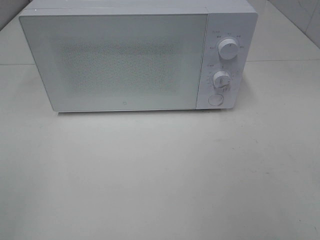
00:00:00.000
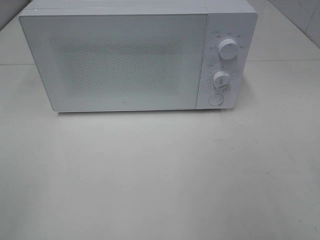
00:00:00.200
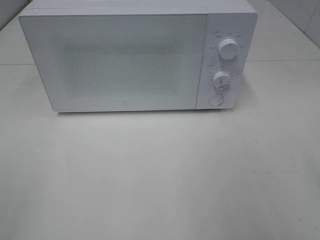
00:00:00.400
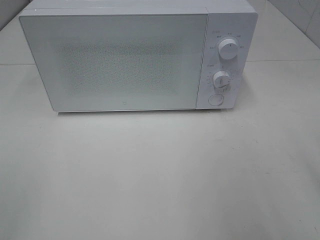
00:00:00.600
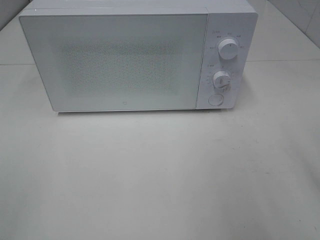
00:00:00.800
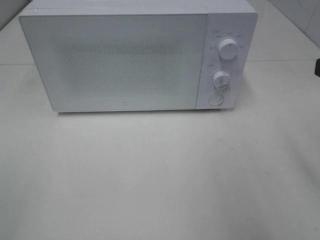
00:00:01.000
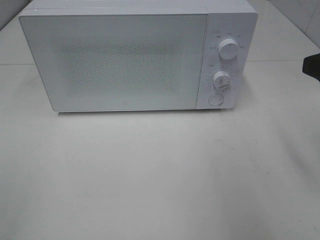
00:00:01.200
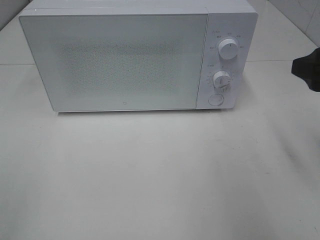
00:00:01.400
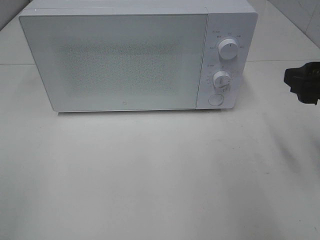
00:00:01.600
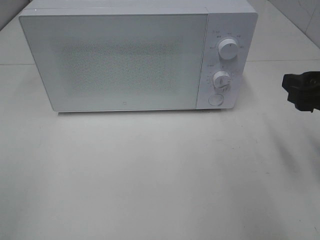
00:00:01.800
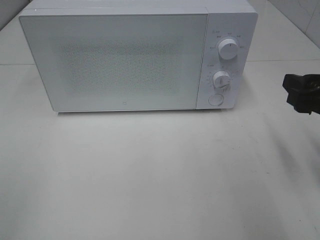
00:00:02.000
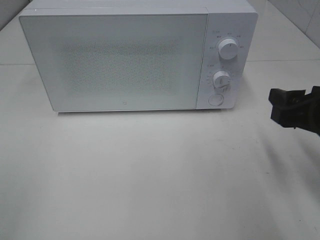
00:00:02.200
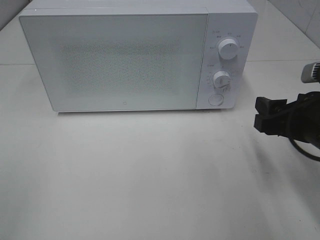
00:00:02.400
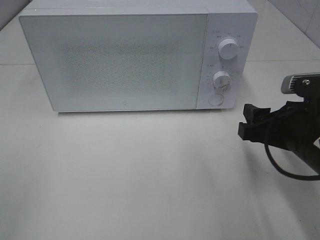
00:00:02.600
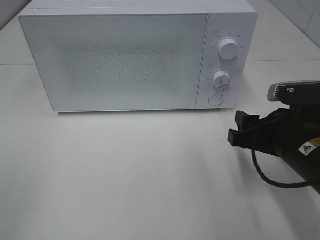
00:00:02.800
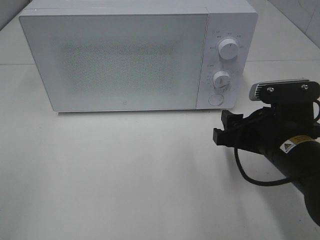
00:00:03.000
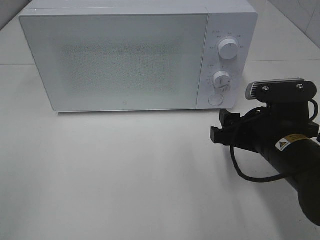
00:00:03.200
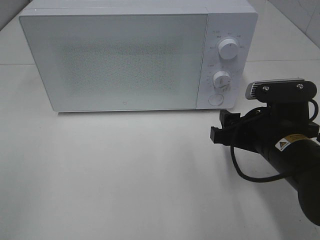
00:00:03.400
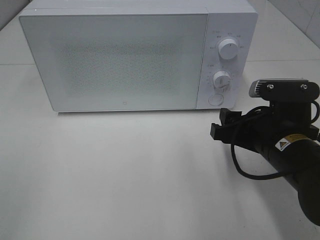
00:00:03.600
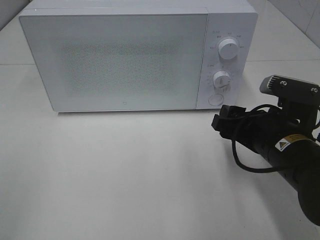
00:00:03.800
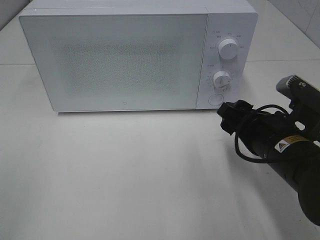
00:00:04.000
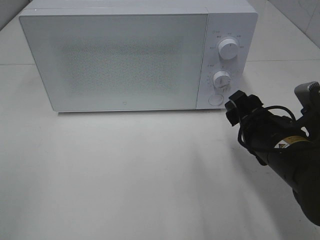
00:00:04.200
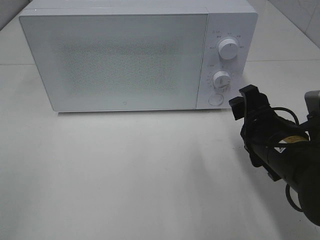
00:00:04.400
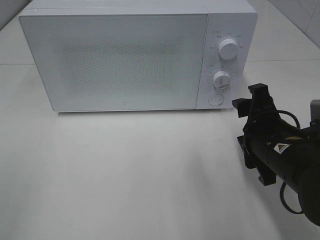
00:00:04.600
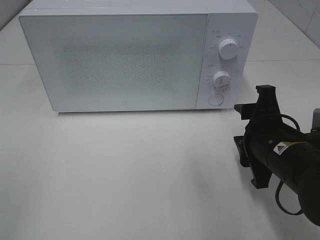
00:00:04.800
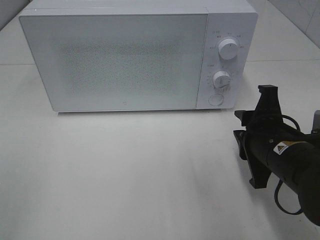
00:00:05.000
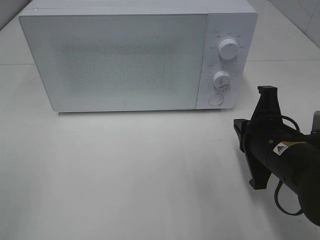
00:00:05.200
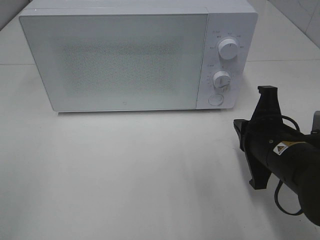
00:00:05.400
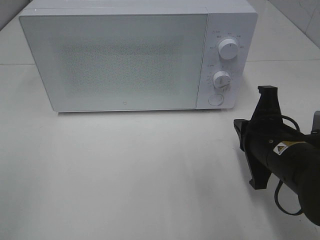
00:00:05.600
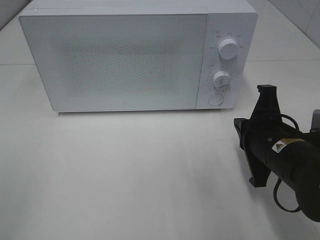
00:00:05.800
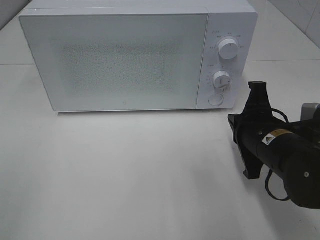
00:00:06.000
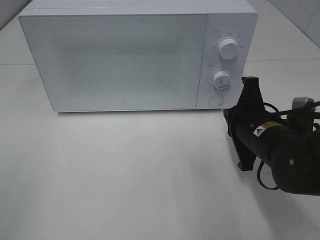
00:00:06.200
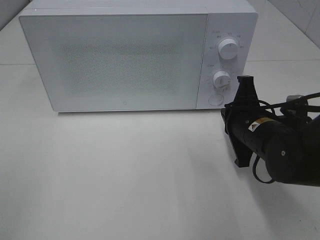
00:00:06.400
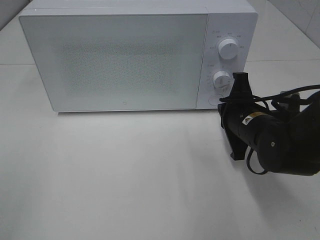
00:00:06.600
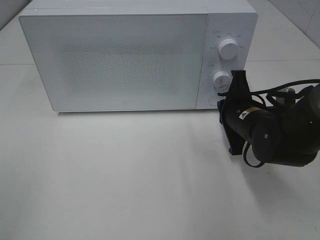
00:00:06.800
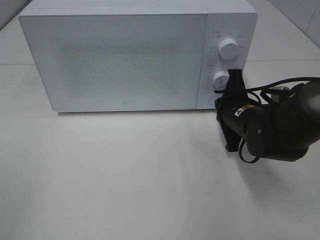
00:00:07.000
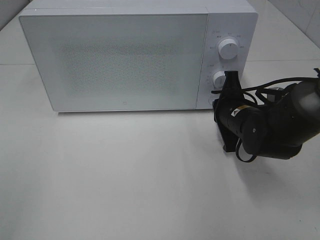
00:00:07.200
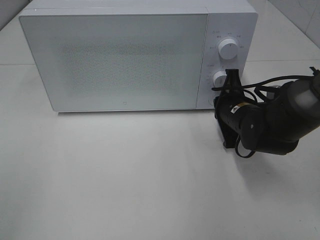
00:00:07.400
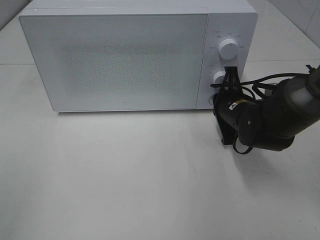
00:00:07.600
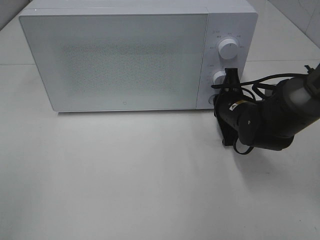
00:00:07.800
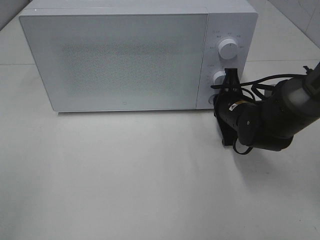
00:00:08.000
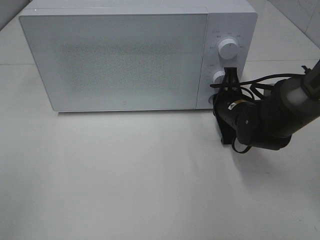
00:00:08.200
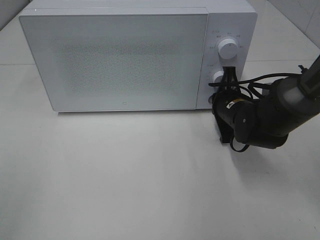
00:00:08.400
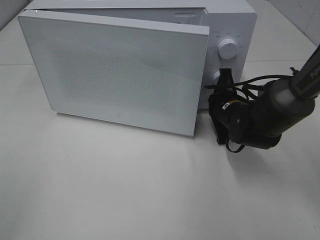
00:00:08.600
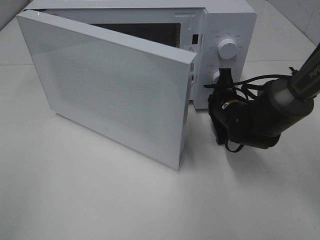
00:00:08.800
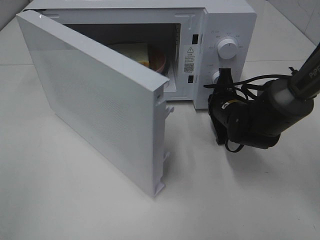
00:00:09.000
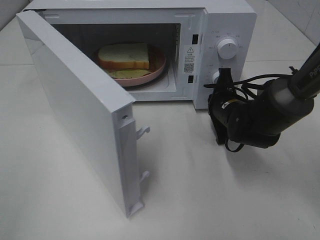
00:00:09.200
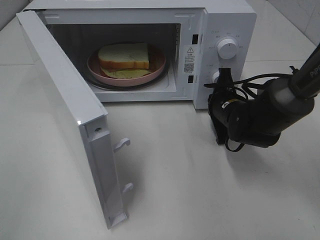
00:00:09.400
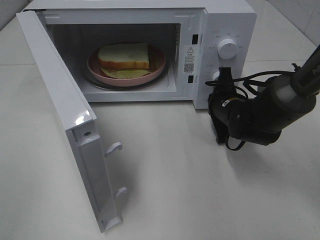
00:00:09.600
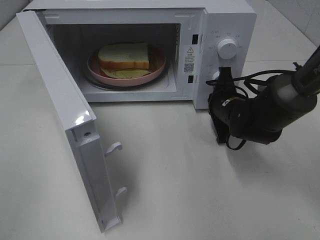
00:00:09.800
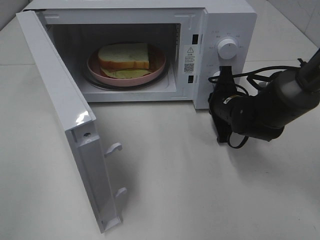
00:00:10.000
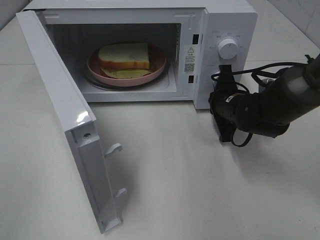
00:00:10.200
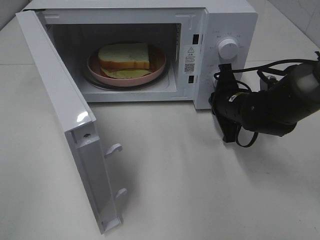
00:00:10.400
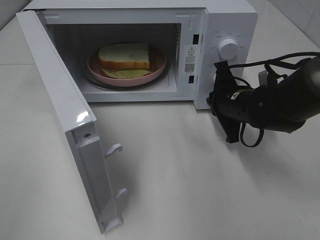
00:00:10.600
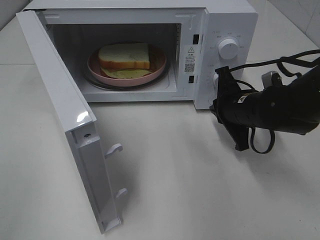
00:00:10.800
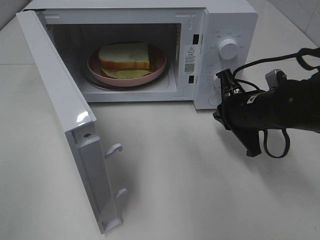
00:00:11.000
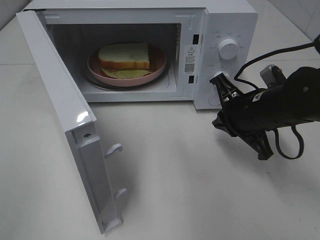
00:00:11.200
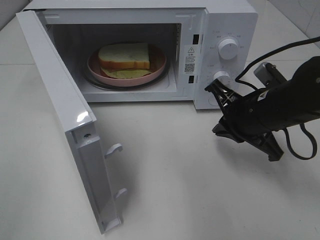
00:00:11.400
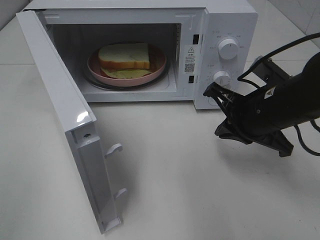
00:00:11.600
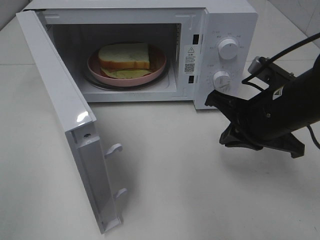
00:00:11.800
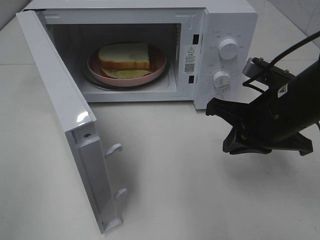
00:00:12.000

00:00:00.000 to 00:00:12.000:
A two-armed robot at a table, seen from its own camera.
Task of the whole recording: Heat Sandwich.
Step, 00:00:00.000 to 00:00:10.400: Right hand: press the switch.
00:00:00.000 to 00:00:01.600: The right gripper travels forward by some 15 cm.
00:00:01.600 to 00:00:03.000: The right gripper heads downward and to the left, covering approximately 15 cm.
00:00:04.400 to 00:00:06.000: The right gripper closes.
00:00:06.000 to 00:00:07.600: The right gripper travels forward by approximately 10 cm.
00:00:10.400 to 00:00:12.000: The right gripper goes approximately 15 cm backward and upward.

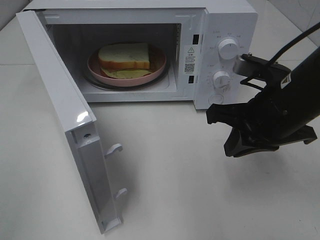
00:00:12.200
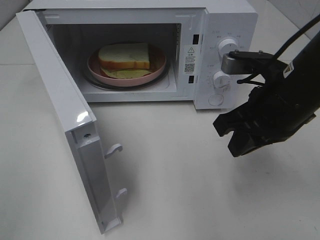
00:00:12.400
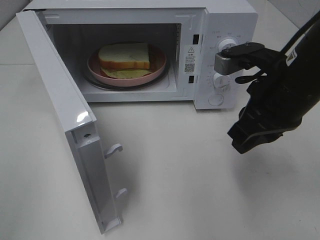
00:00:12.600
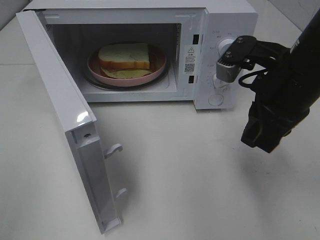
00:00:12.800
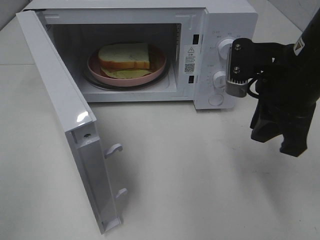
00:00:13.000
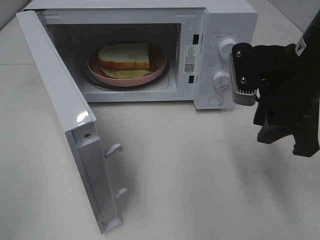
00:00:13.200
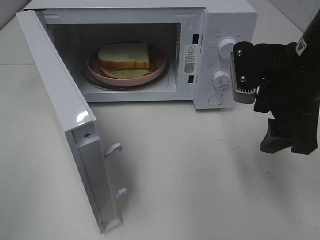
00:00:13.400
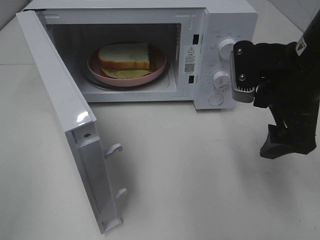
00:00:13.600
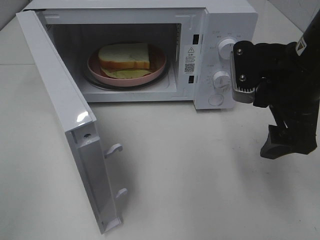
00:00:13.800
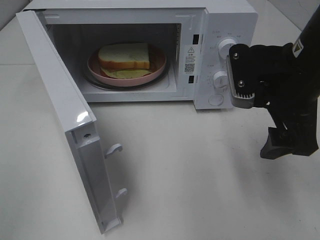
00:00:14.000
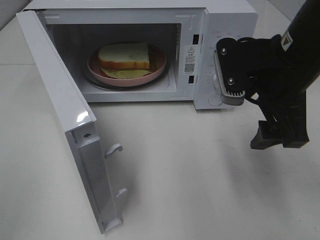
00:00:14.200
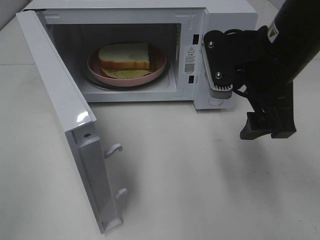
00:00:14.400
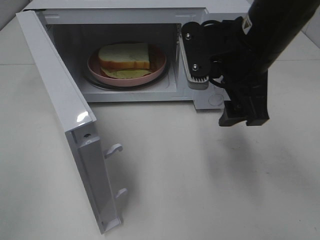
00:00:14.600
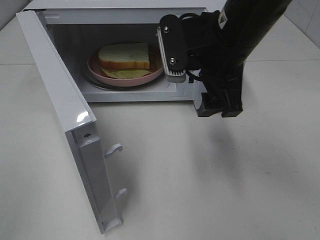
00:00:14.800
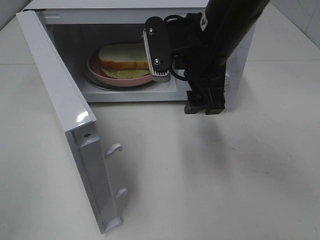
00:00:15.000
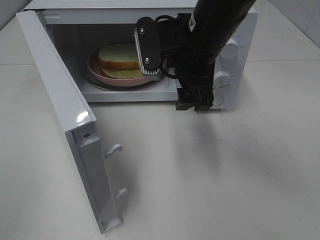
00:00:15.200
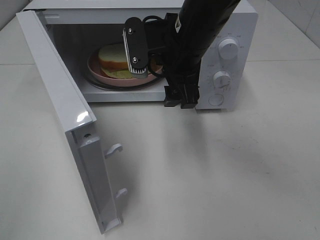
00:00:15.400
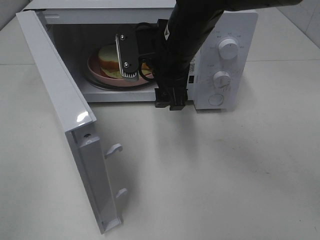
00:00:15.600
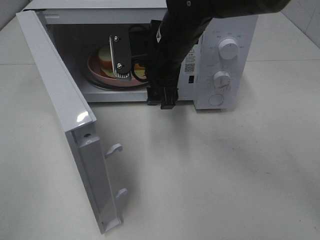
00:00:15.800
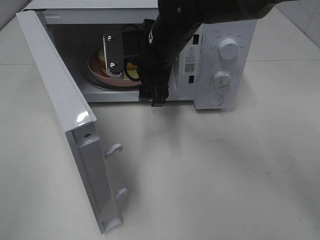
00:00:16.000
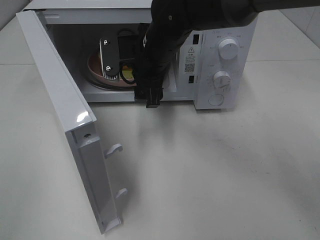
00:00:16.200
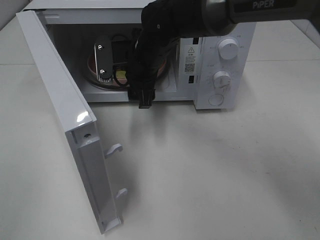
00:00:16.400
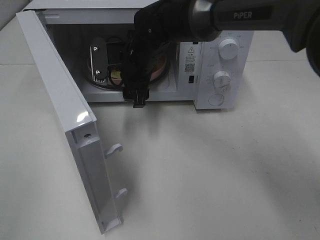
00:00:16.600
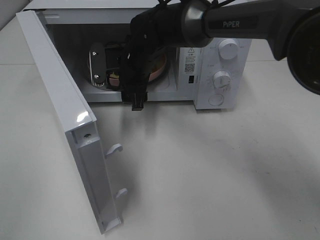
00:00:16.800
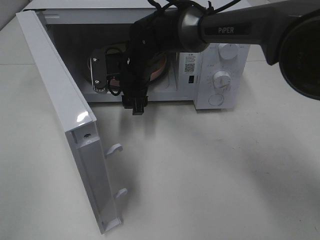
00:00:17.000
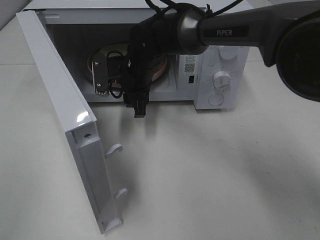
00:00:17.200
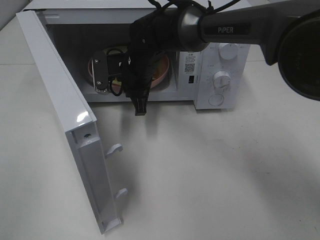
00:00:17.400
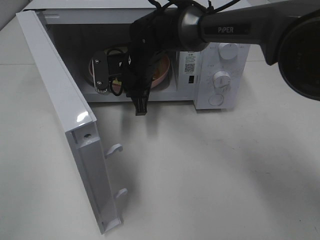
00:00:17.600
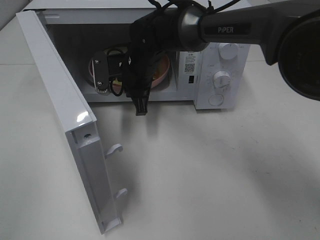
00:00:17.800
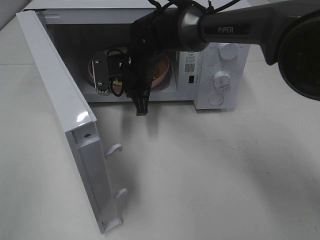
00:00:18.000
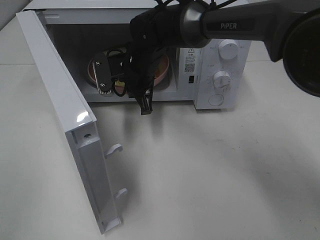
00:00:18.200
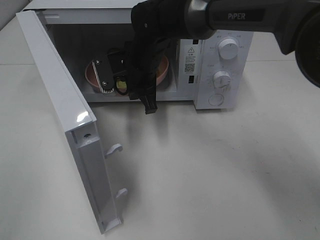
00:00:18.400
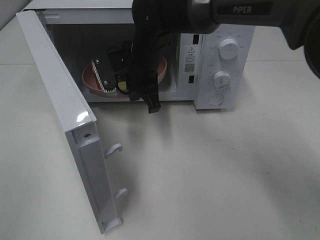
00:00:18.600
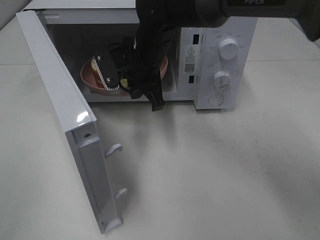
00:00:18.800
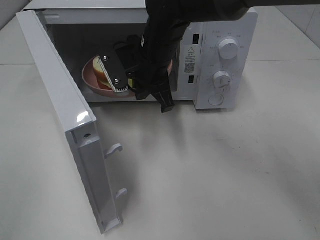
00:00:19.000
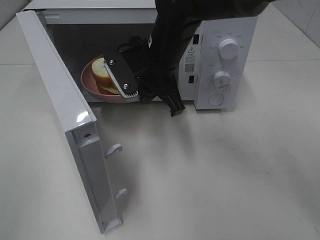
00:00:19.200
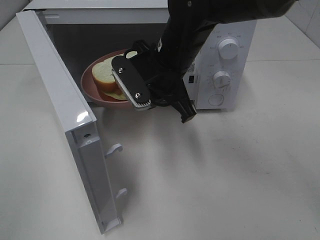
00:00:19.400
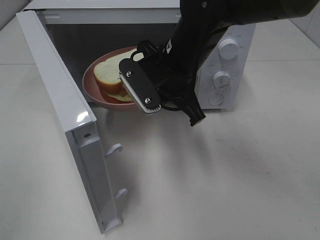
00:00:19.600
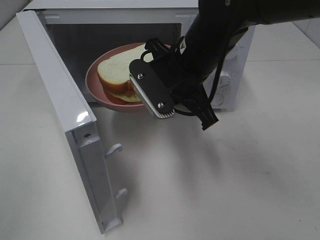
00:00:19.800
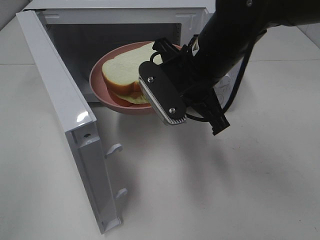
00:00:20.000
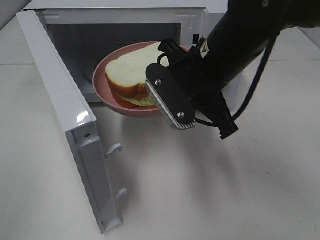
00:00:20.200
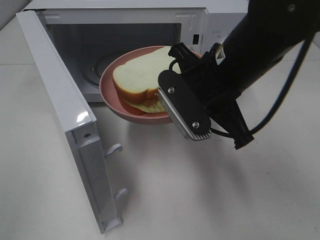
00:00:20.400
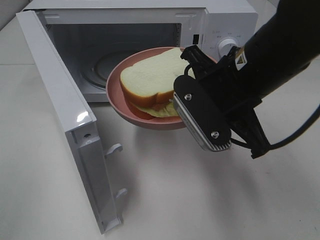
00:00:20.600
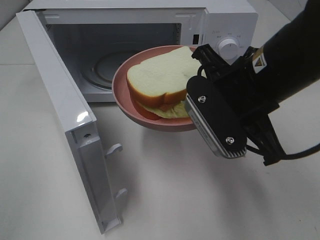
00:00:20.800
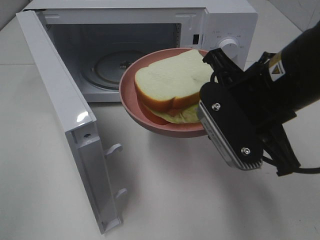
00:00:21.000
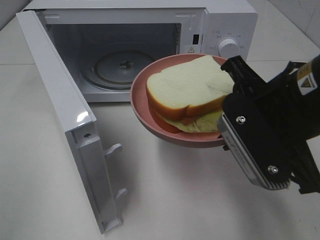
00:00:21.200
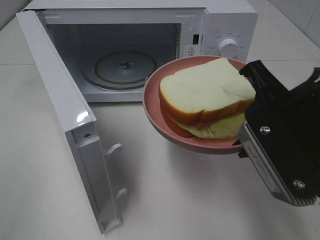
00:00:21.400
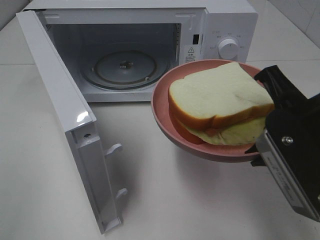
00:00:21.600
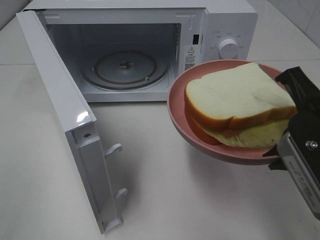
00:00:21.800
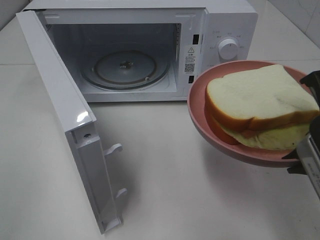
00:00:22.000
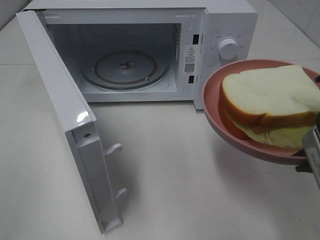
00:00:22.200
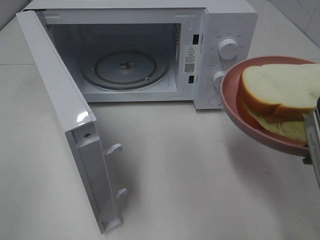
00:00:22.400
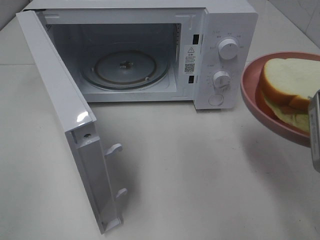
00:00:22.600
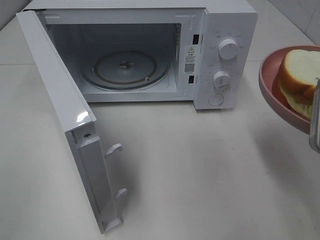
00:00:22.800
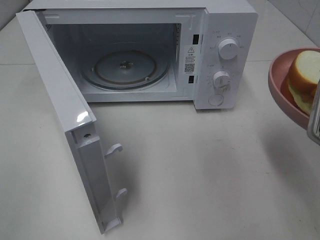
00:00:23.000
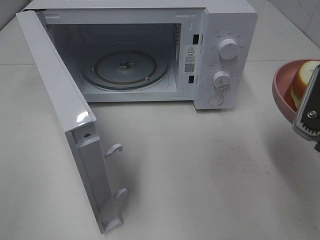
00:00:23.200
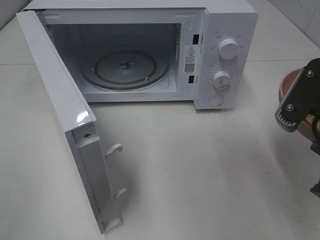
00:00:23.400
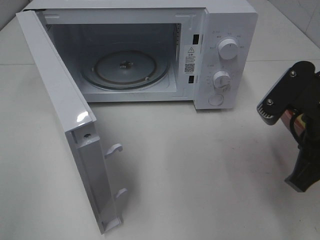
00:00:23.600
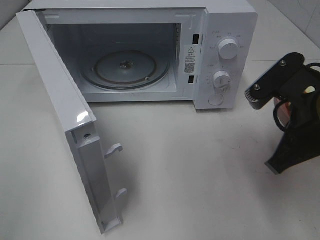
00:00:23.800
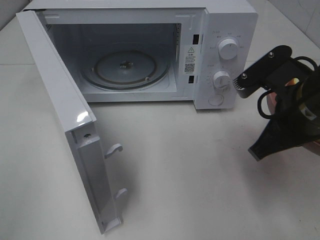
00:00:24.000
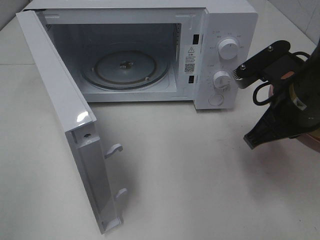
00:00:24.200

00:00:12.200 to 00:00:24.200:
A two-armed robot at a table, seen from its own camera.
Task of the whole recording: Heat Sandwich.
Step, 00:00:12.200 to 00:00:18.600: Right hand: grab the plate with the sandwich.
00:00:12.200 to 00:00:13.800: The right gripper opens its fingers.
00:00:13.800 to 00:00:15.200: The right gripper goes roughly 15 cm to the left and forward.
00:00:15.200 to 00:00:16.600: The right gripper goes roughly 15 cm forward, to the left and downward.
00:00:16.600 to 00:00:18.200: The right gripper closes.
00:00:18.200 to 00:00:19.800: The right gripper travels backward, to the right and upward by roughly 15 cm.
00:00:19.800 to 00:00:21.200: The right gripper is displaced backward and to the right by approximately 15 cm.
00:00:21.200 to 00:00:22.600: The right gripper is displaced to the right and backward by about 10 cm.
00:00:22.600 to 00:00:24.200: The right gripper heads forward and downward, covering some 10 cm.
